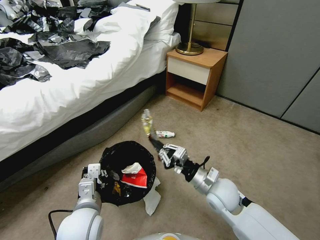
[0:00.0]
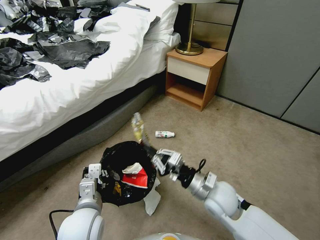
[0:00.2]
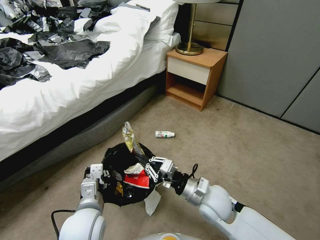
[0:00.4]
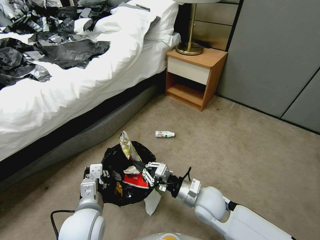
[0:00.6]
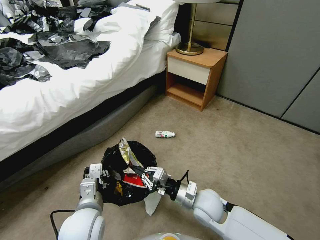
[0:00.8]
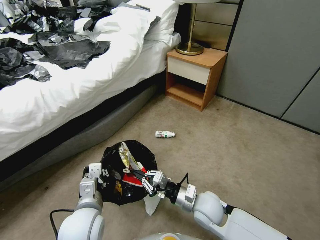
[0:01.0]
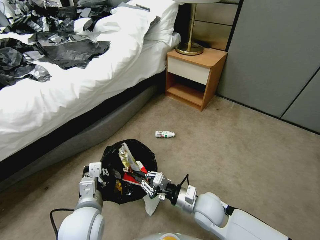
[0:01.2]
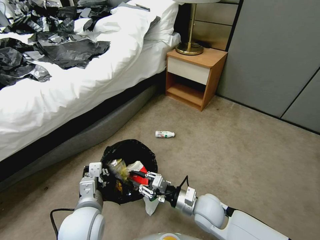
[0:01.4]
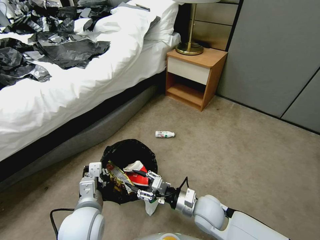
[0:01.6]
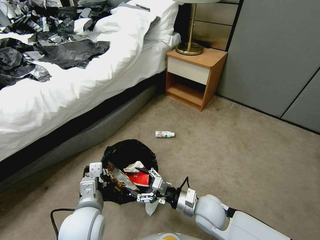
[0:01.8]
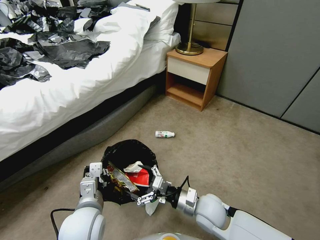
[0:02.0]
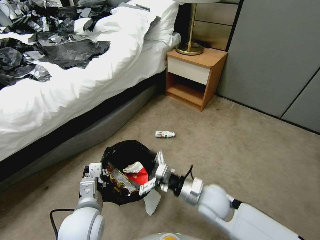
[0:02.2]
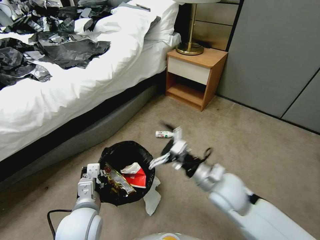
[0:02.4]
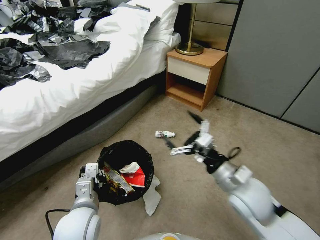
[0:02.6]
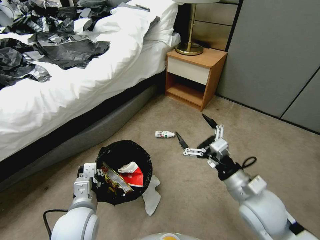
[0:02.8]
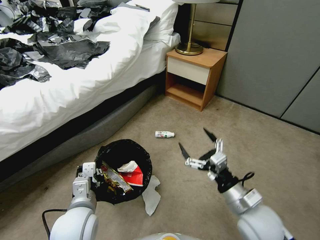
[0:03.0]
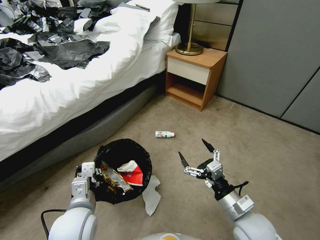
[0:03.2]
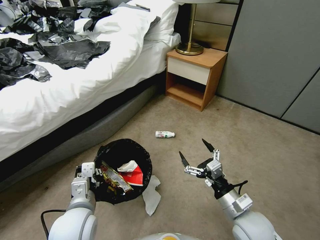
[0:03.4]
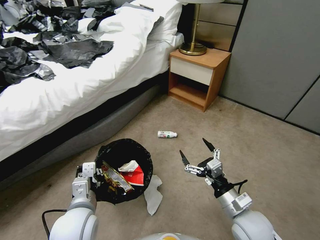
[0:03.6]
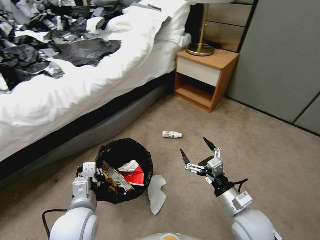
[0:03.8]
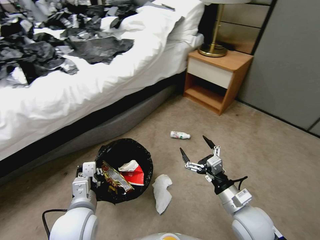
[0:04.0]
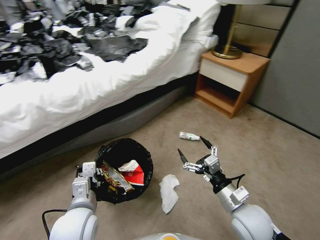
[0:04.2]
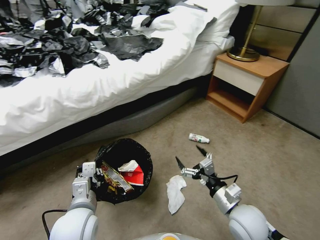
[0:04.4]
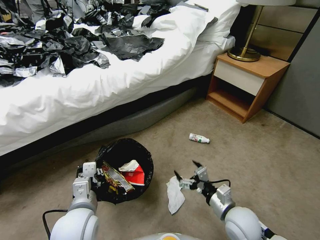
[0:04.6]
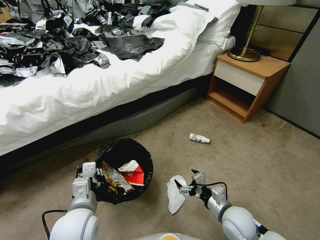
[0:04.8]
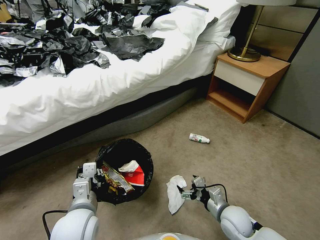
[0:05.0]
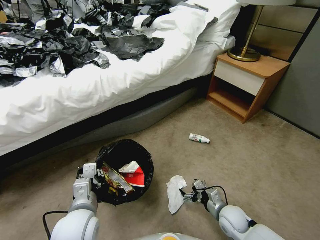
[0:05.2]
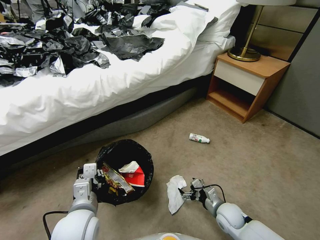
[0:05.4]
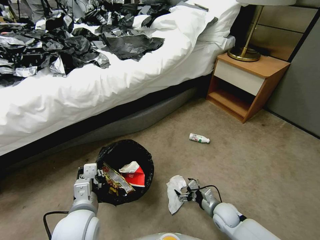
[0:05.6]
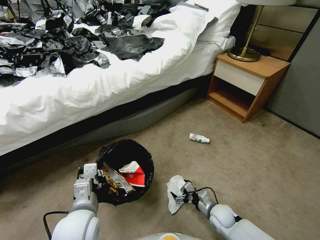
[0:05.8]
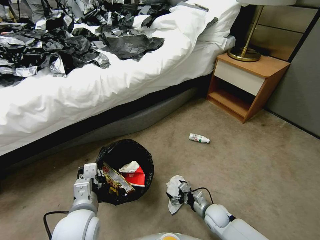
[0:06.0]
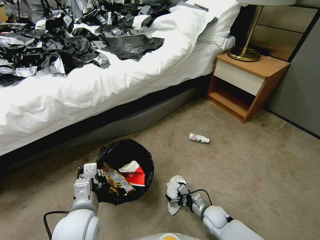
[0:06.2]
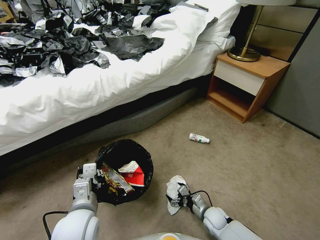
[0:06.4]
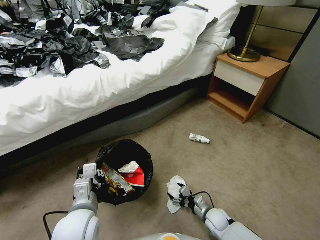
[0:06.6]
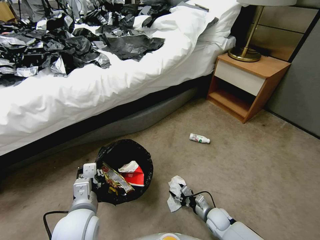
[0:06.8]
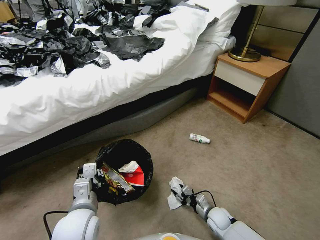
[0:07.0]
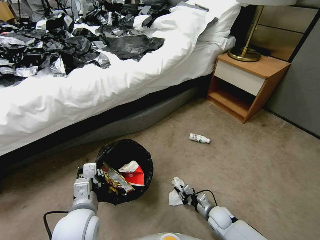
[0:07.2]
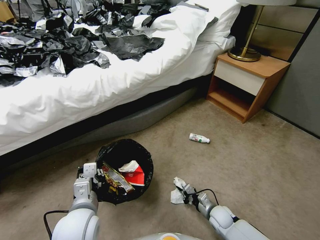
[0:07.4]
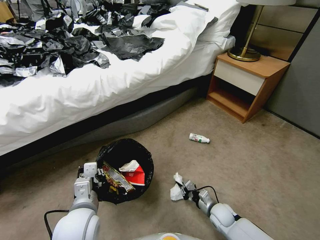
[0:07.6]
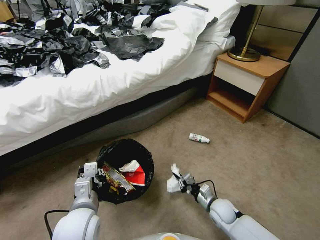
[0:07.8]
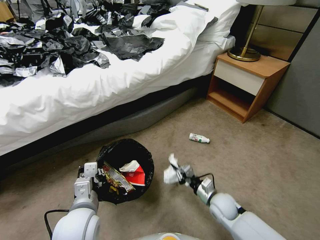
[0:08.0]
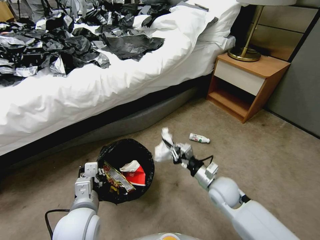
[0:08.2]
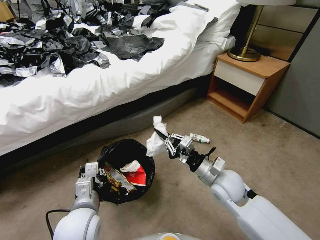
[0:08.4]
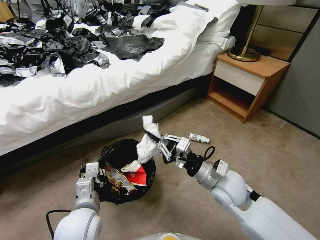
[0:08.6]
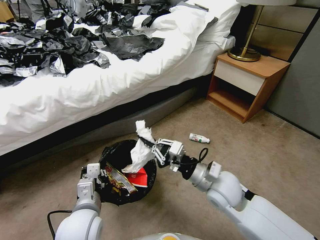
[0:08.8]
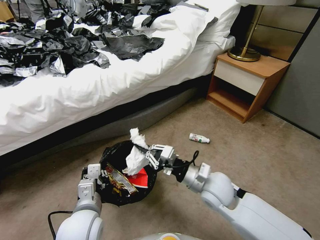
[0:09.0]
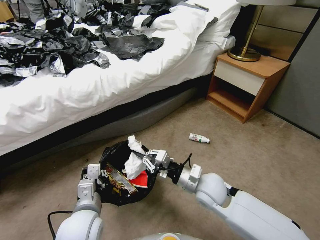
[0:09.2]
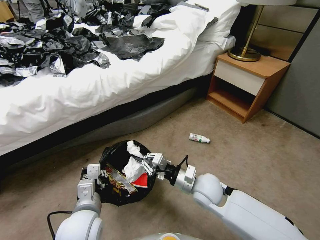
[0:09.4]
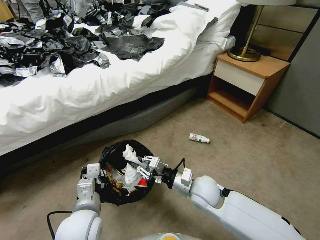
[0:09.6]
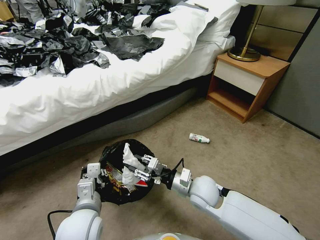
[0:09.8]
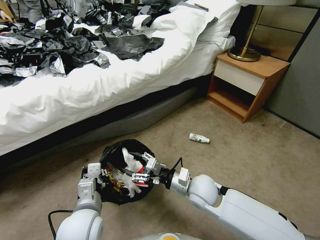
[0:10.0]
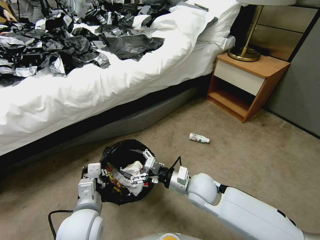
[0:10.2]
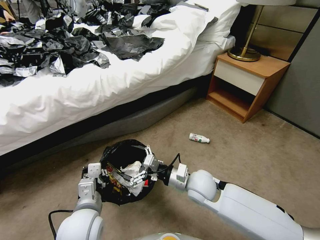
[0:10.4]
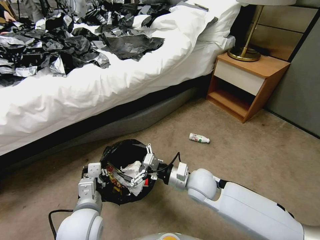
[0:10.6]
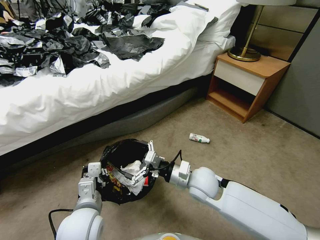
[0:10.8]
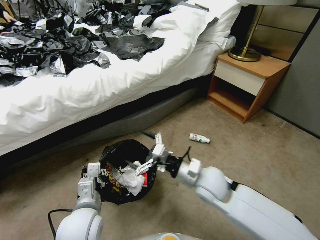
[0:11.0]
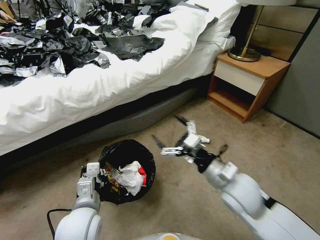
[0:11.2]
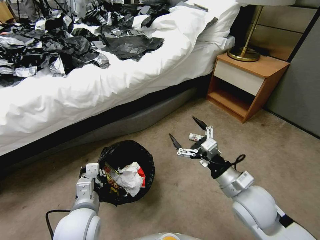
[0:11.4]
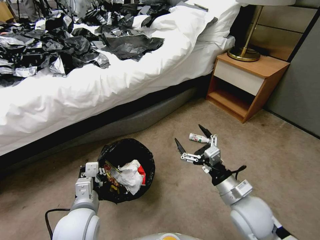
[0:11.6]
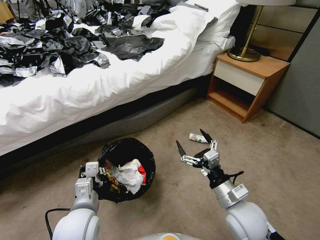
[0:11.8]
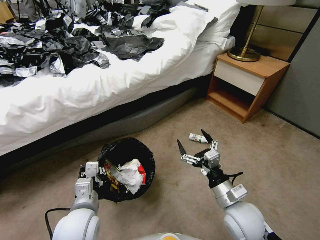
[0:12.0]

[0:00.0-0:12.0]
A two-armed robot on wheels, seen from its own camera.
Task of the whole recording: Pick up the trash bin, then pick up the garbage from the floor and place it into the trash bin.
0:00.0 to 0:01.6: The right gripper shifts by roughly 10 cm, and opens its fingers.
0:01.6 to 0:03.0: The right gripper travels to the right and upward by roughly 15 cm, and opens up.
0:04.4 to 0:06.0: The right gripper heads downward, covering approximately 20 cm.
0:06.0 to 0:07.6: The right gripper closes its fingers.
0:07.6 to 0:09.0: The right gripper heads upward, covering about 25 cm.
0:09.0 to 0:10.4: The right gripper ends up some 5 cm from where it was, and opens its fingers.
0:10.4 to 0:12.0: The right gripper heads to the right and backward, covering roughly 15 cm.

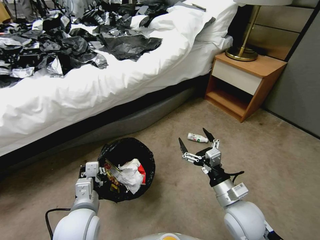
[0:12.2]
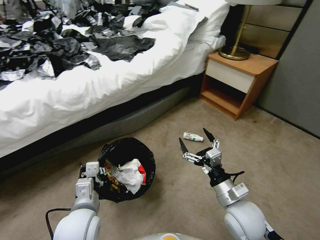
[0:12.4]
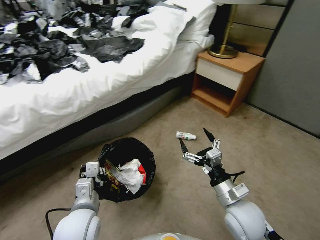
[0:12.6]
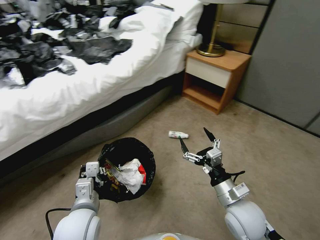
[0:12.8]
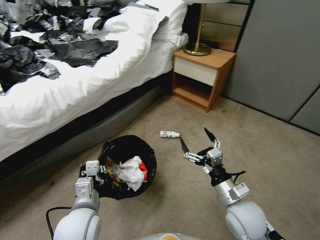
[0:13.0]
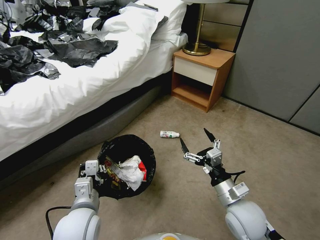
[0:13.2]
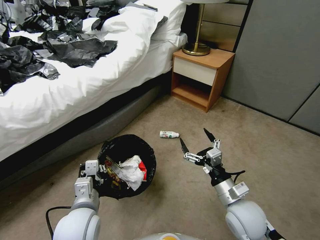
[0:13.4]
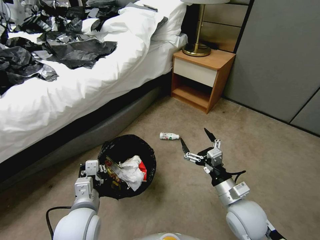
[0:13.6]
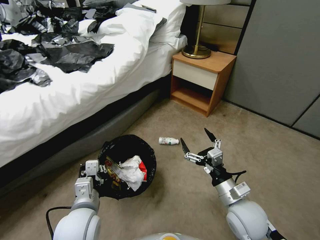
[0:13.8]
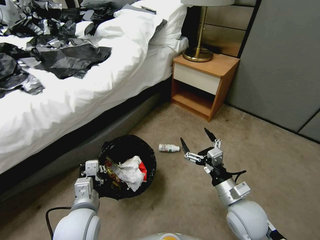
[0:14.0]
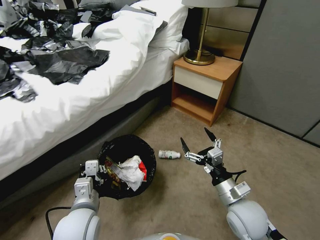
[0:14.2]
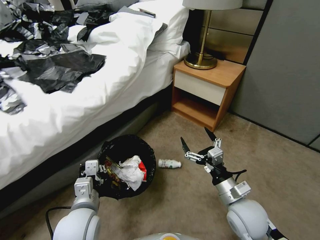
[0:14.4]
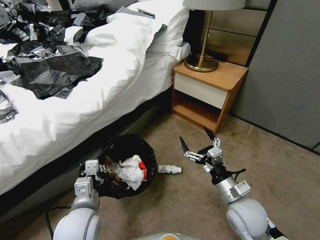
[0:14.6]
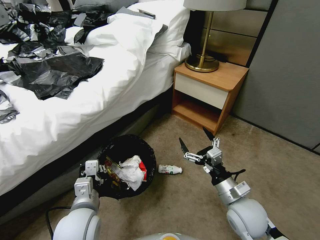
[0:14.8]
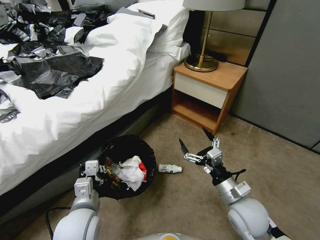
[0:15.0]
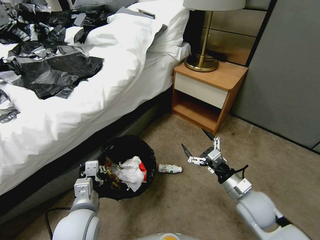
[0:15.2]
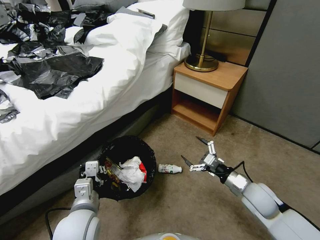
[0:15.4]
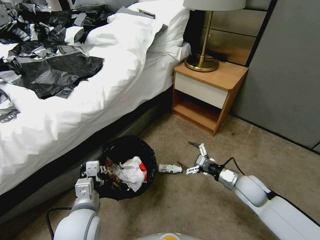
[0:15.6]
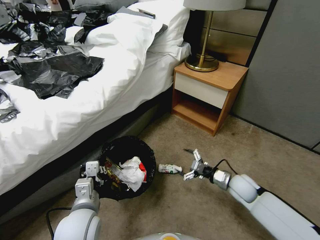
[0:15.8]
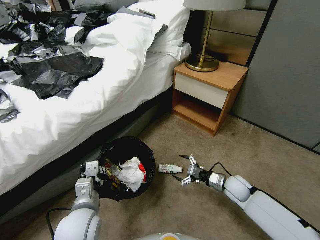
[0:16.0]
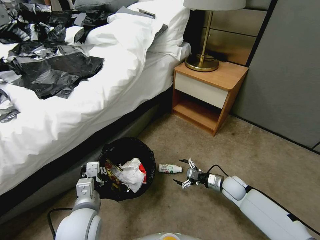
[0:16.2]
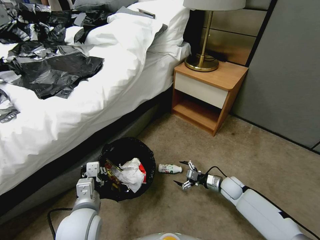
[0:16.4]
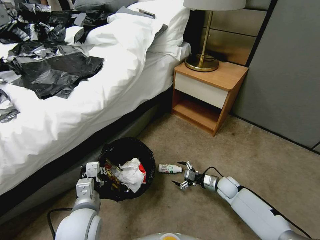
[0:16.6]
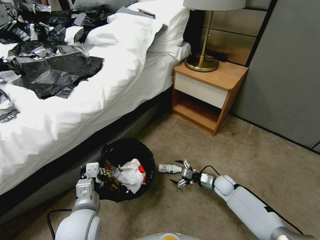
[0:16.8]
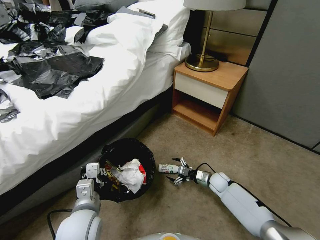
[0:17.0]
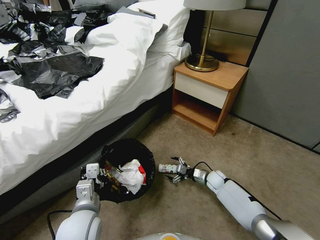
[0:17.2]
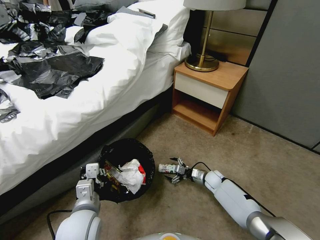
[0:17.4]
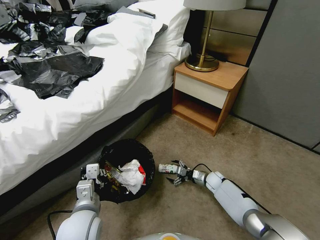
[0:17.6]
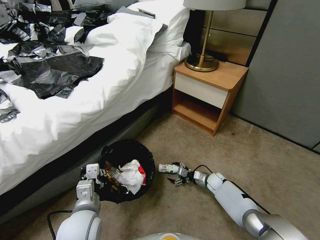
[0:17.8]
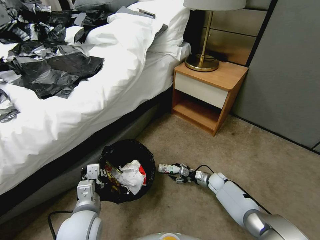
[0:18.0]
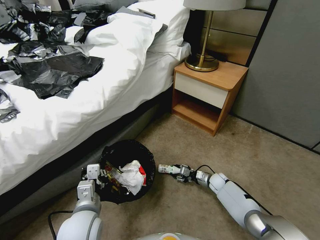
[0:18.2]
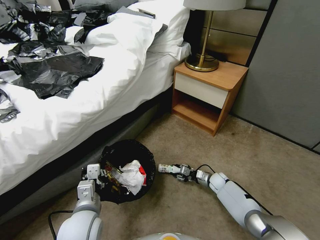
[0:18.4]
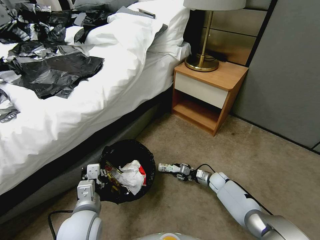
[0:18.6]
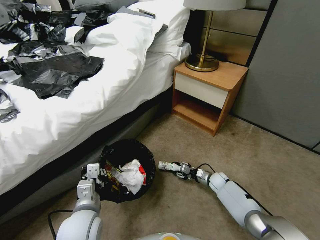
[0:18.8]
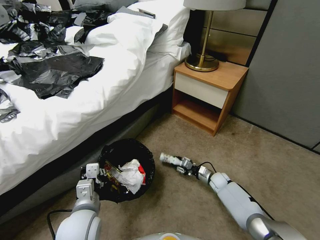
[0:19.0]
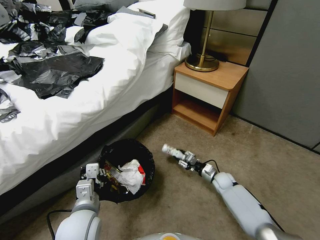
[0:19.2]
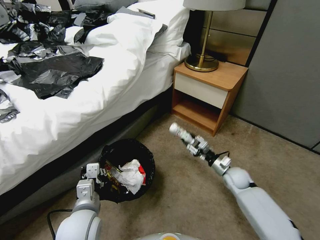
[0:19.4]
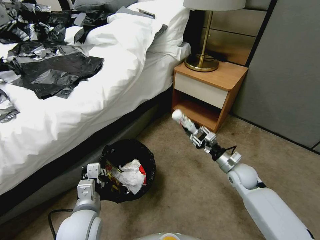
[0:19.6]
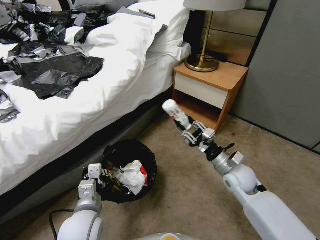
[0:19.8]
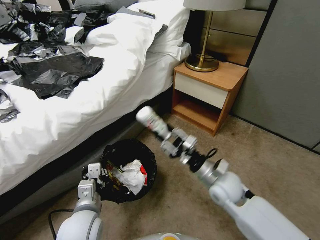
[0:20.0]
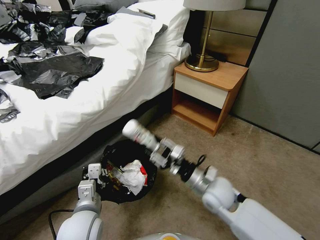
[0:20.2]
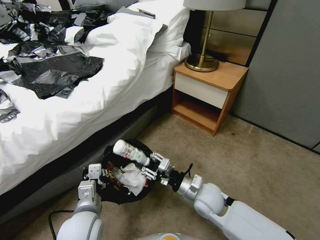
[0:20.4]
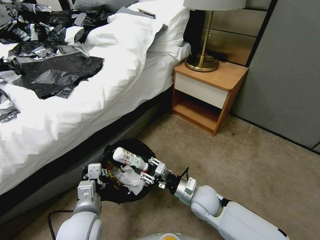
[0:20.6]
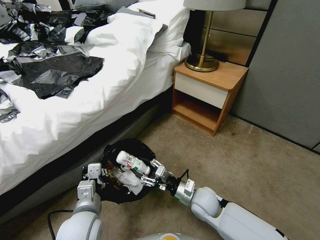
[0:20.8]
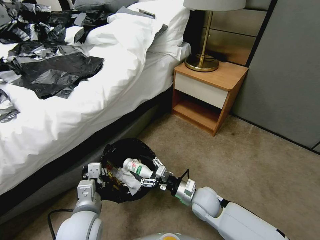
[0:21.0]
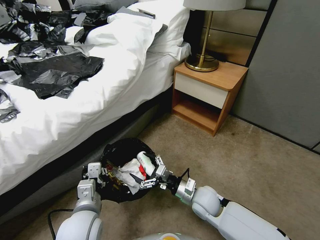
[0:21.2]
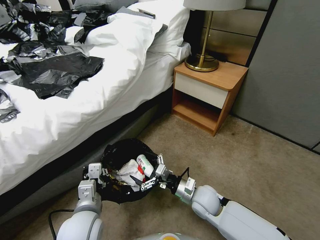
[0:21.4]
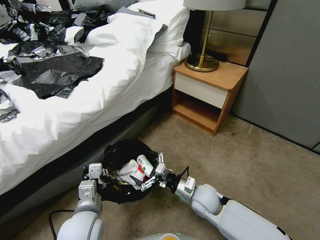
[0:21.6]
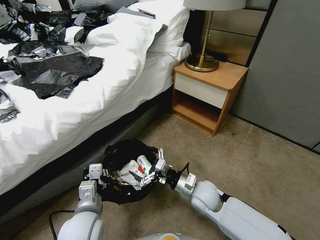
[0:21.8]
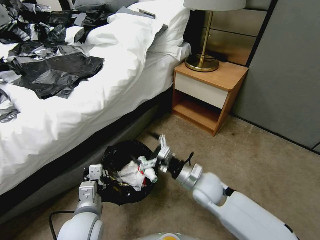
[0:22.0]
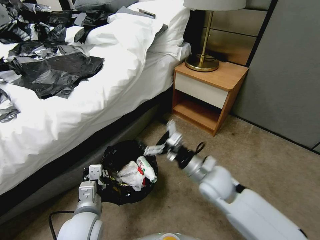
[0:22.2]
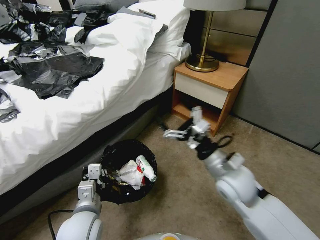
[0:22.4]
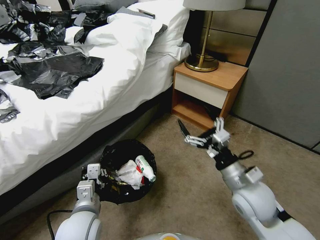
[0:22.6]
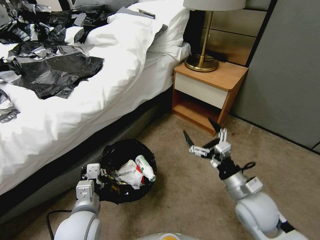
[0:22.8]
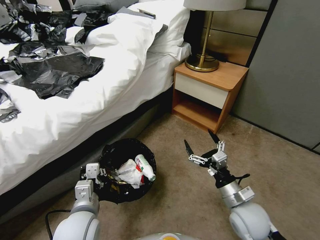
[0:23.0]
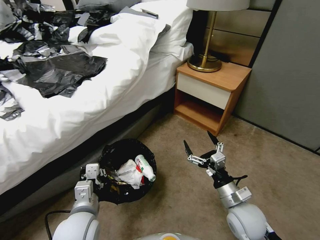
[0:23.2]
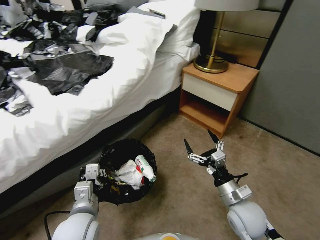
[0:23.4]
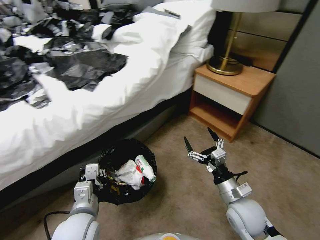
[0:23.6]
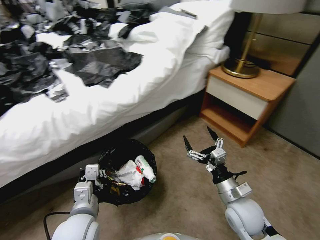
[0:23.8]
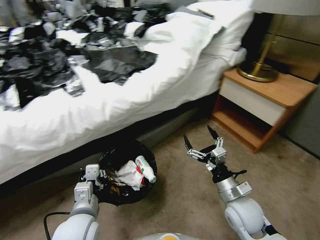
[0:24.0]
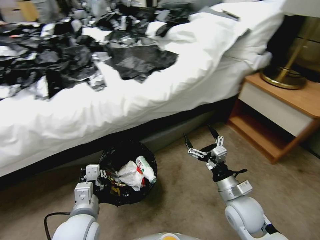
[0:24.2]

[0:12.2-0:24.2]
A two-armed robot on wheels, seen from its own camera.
Task of the whole recording: Pick up the trash bin, then pick up the garbage from the floor and place it into the trash bin.
0:13.8 to 0:15.2: The right gripper goes about 5 cm to the right.
0:15.2 to 0:16.6: The right gripper is displaced downward and forward by some 25 cm.
0:16.6 to 0:18.2: The right gripper heads downward, covering some 5 cm, and closes its fingers.
0:18.2 to 0:19.8: The right gripper shifts about 25 cm upward.
0:19.8 to 0:21.2: The right gripper heads to the left and downward, covering roughly 15 cm, and opens.
0:21.2 to 0:22.6: The right gripper heads upward and to the right, covering approximately 15 cm.
0:22.6 to 0:24.2: The right gripper heads downward, covering roughly 10 cm.
